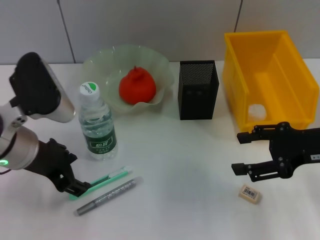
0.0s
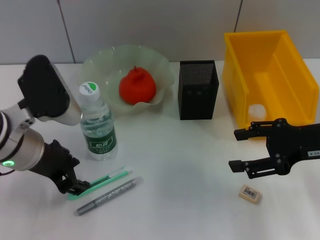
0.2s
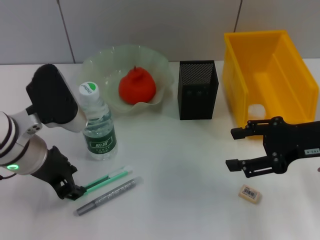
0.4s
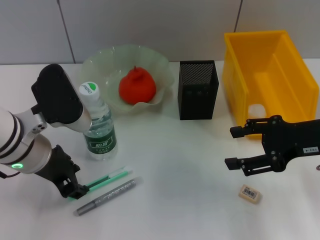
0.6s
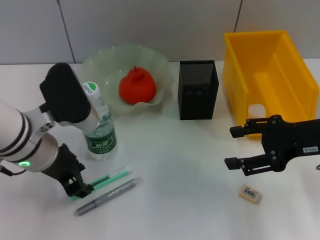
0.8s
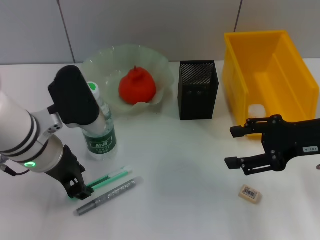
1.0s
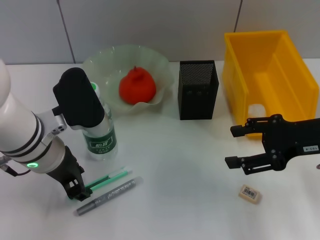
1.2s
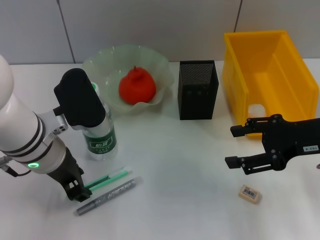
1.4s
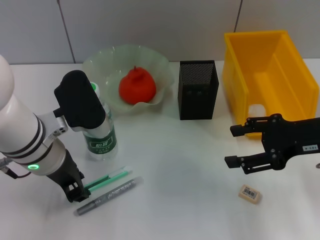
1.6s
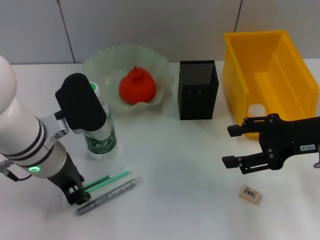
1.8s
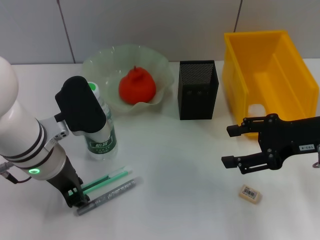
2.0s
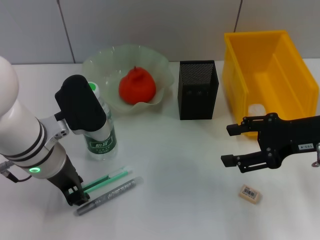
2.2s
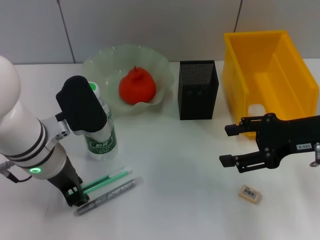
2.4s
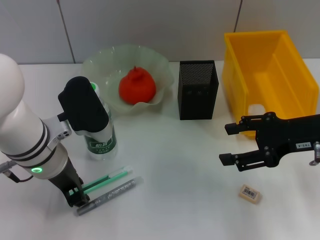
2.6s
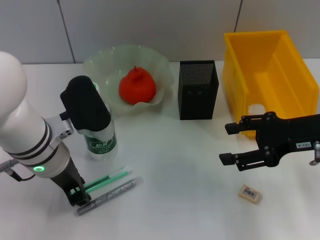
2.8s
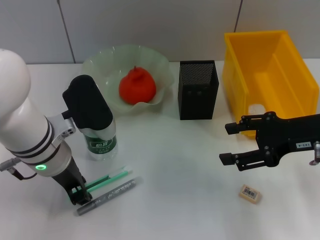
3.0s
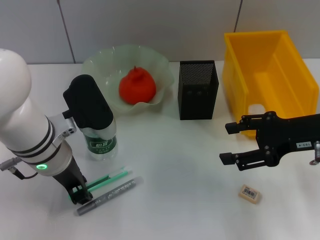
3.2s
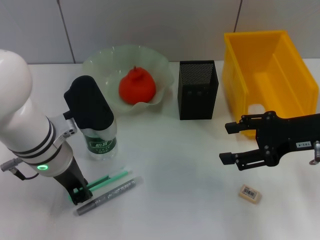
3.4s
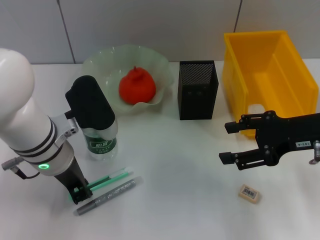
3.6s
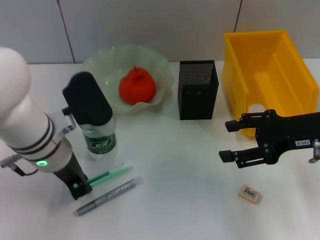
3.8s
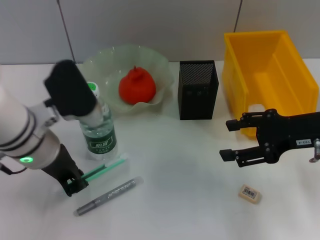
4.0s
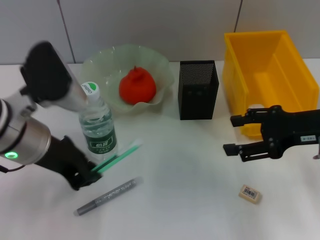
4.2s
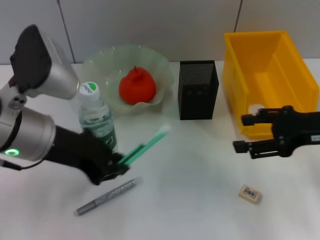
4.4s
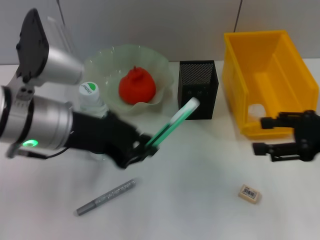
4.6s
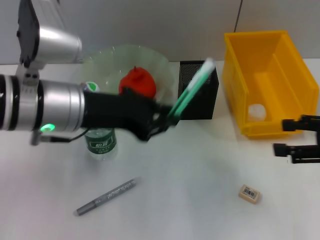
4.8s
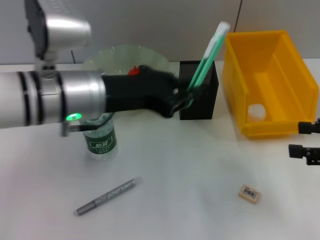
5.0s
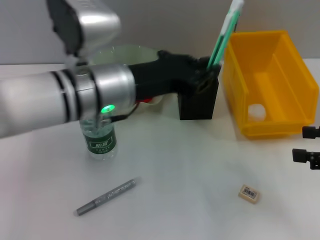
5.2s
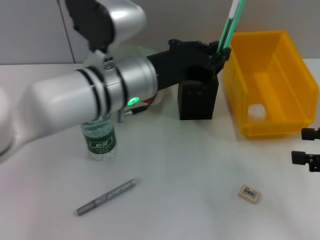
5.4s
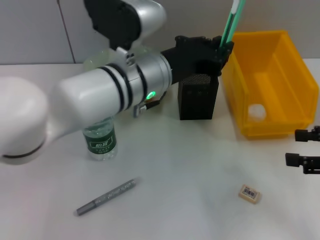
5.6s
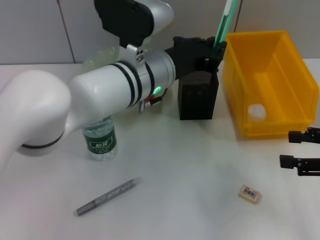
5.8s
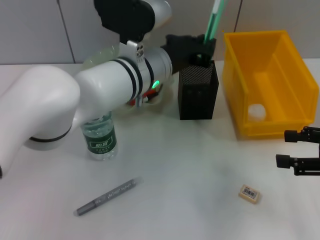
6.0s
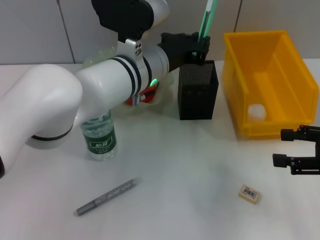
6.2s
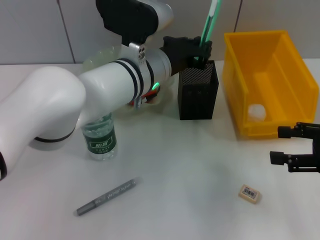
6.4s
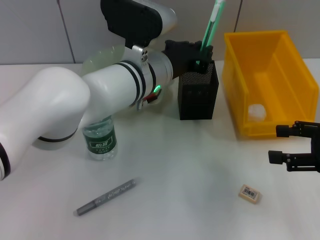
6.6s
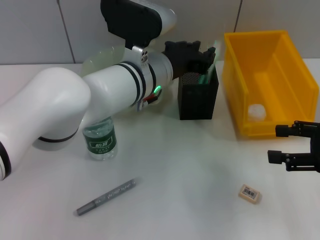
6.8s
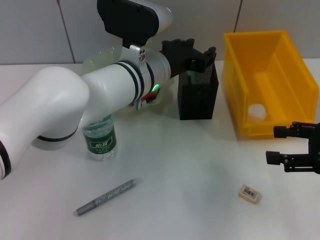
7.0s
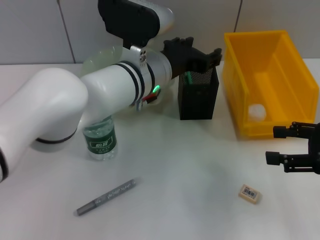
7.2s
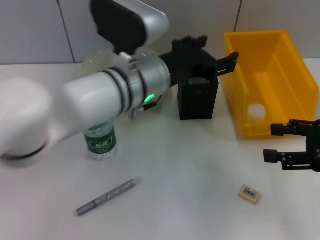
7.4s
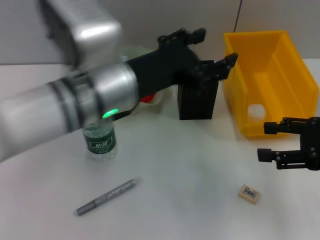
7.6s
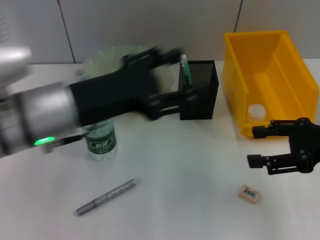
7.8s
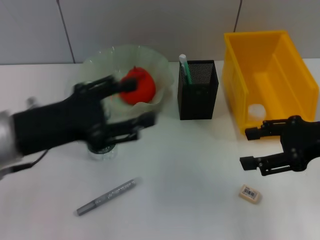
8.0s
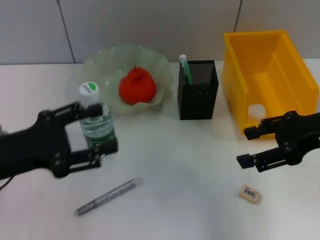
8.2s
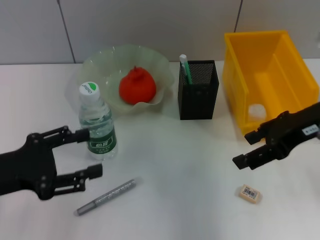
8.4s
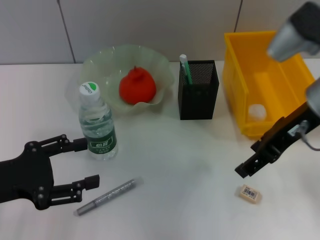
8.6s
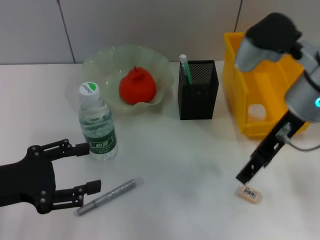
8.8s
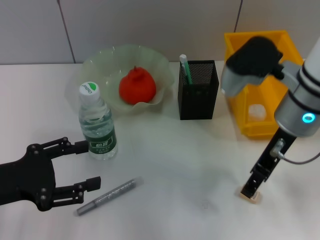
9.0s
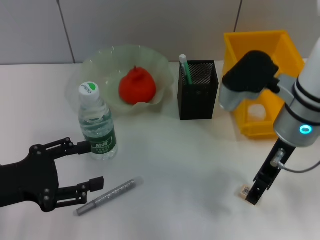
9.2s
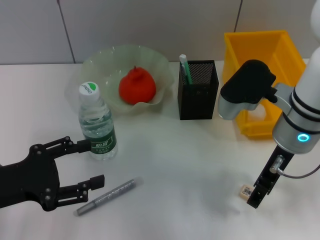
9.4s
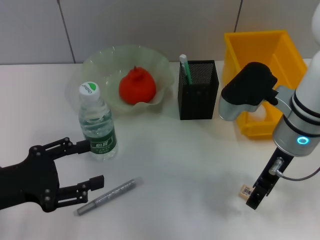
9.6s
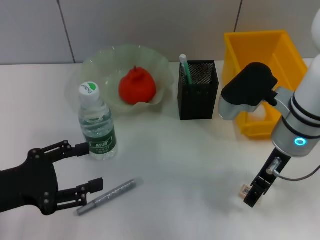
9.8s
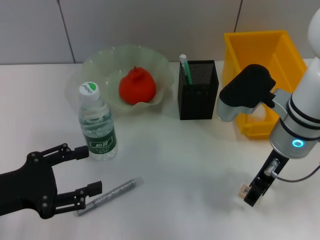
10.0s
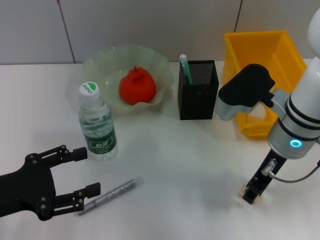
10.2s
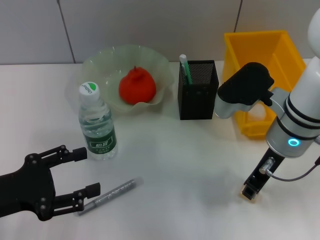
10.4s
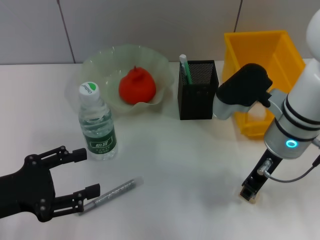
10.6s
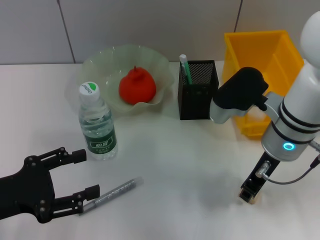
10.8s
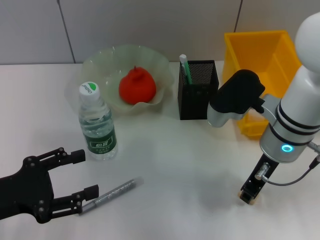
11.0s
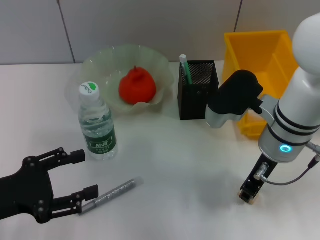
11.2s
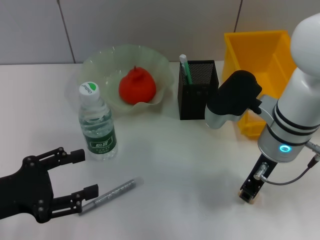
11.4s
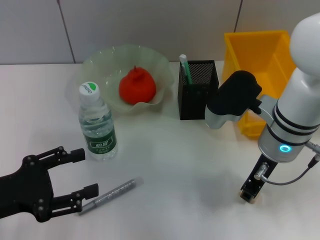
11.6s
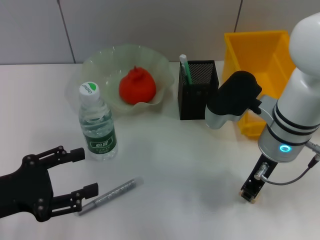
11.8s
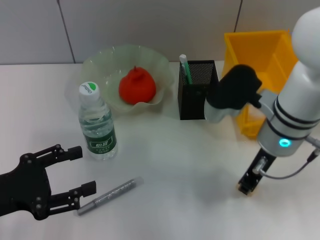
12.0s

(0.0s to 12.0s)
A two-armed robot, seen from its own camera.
Step, 0.0s - 3.4s: Grab the blue utility knife with the left hand.
Step, 3.8s - 7.0s: Place the blue utility knife into the pen holder with the left hand.
Step, 7.2s - 11.6s: Grab the eraser with the right hand.
0.0s - 1.6s: There are only small adjustments of the grippers.
1.6s - 3.0s: Both grippers stay about where they are.
3.0s - 4.4s: The left gripper goes approximately 5 cm upward.
4.4s - 6.0s: The right gripper is displaced to the right by some 5 cm. Meanwhile the left gripper shifts approximately 15 cm to the right and forward.
6.0s - 7.6s: The left gripper heads backward and to the left, covering approximately 10 cm, and opens its fingers.
7.6s - 9.0s: The left gripper moves to the left and backward, about 20 cm. Meanwhile the right gripper shifts about 15 cm to the left and forward.
9.0s - 10.4s: The right gripper closes.
10.4s - 12.0s: Neither gripper changes place.

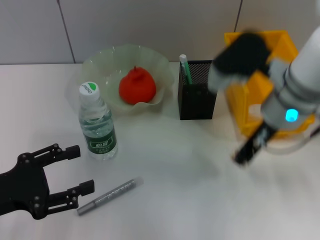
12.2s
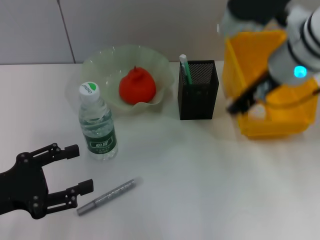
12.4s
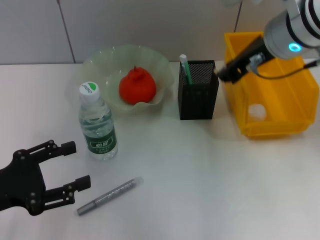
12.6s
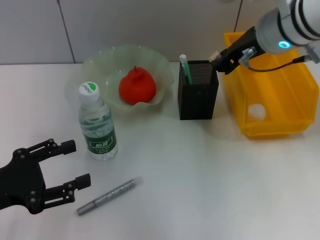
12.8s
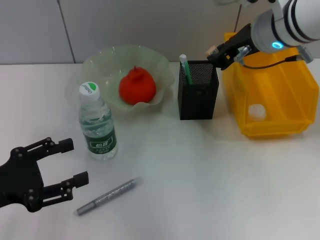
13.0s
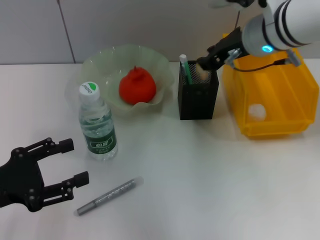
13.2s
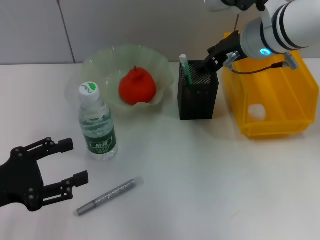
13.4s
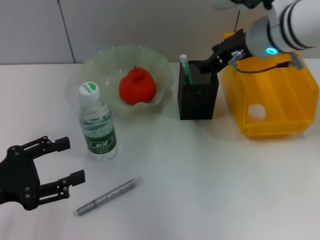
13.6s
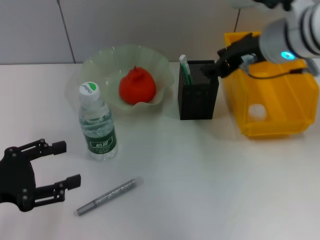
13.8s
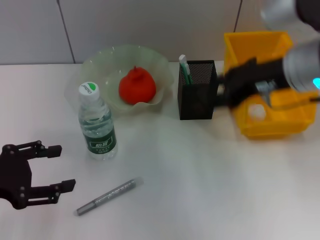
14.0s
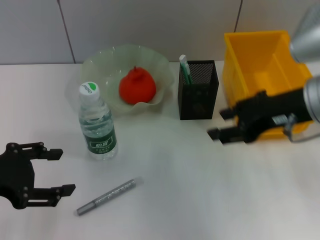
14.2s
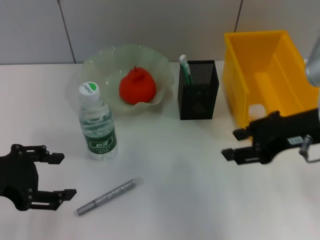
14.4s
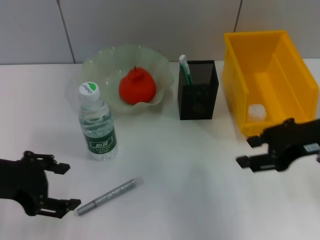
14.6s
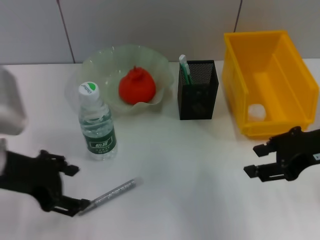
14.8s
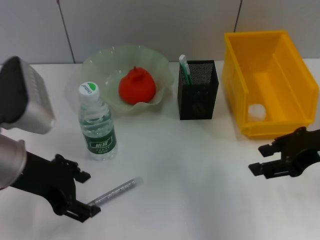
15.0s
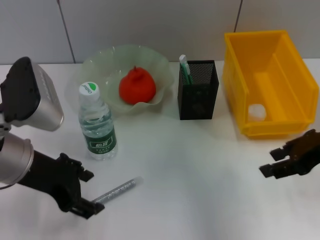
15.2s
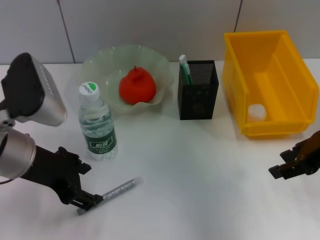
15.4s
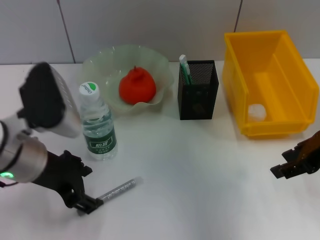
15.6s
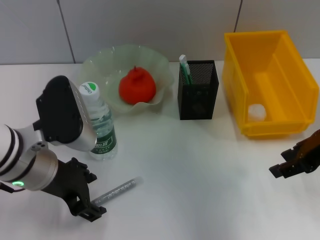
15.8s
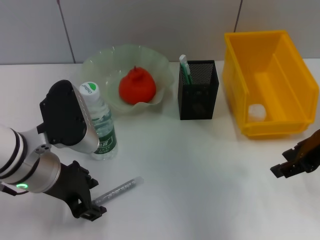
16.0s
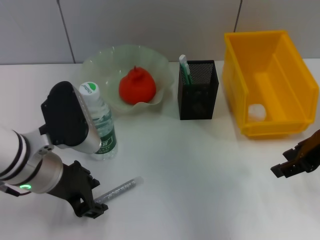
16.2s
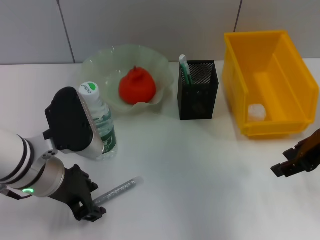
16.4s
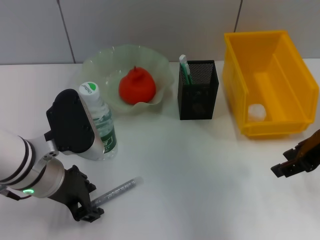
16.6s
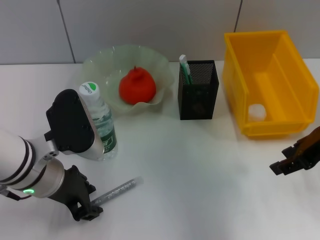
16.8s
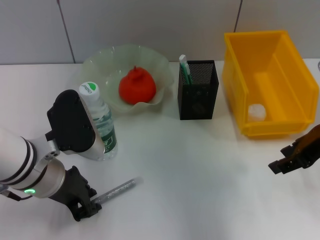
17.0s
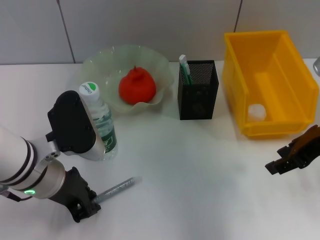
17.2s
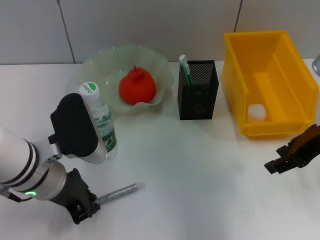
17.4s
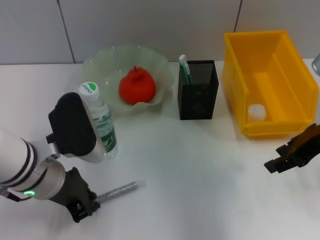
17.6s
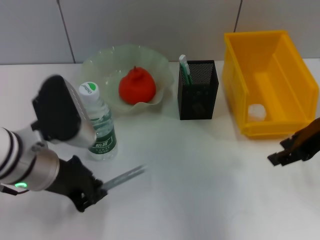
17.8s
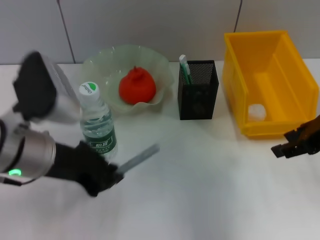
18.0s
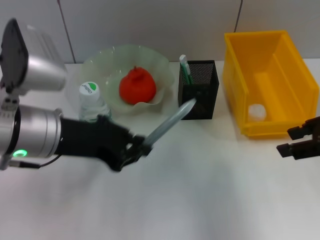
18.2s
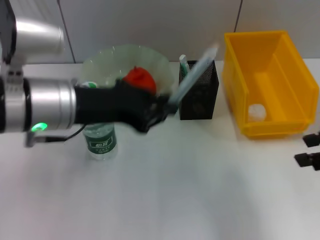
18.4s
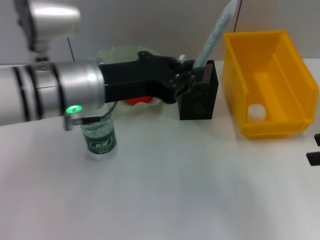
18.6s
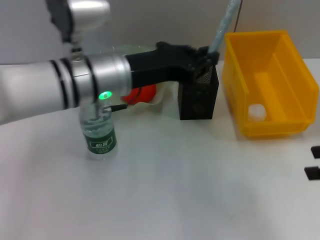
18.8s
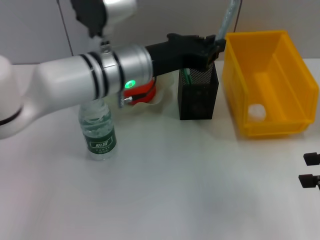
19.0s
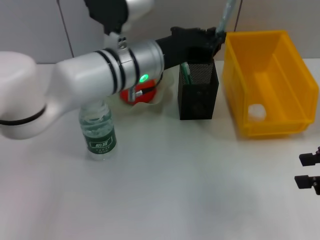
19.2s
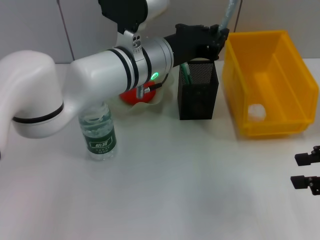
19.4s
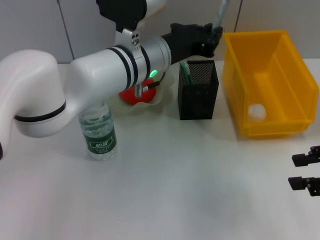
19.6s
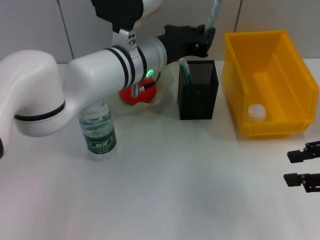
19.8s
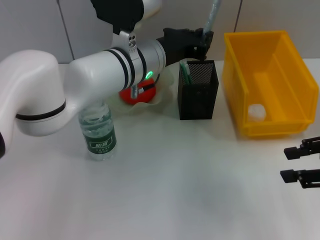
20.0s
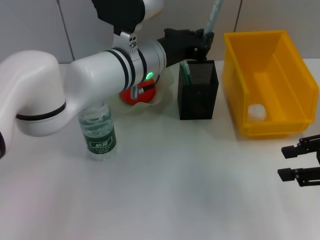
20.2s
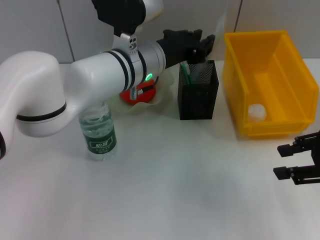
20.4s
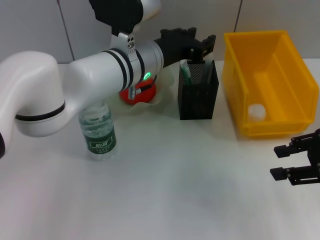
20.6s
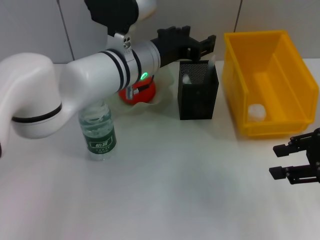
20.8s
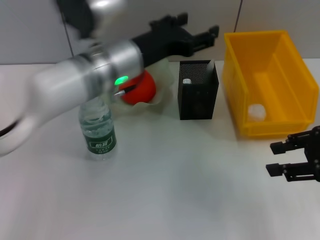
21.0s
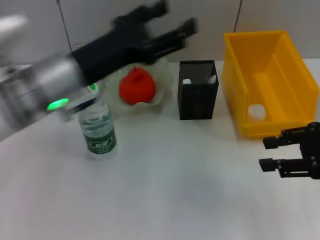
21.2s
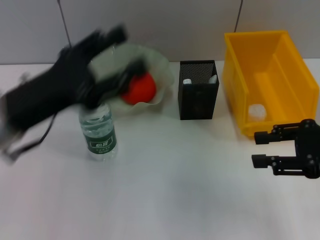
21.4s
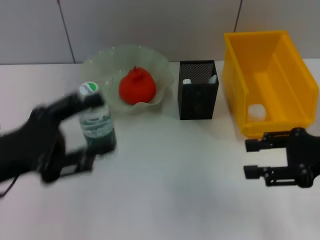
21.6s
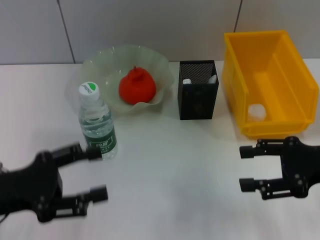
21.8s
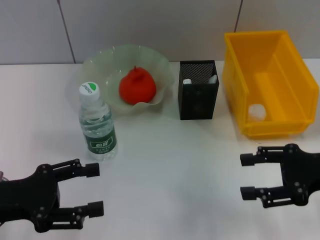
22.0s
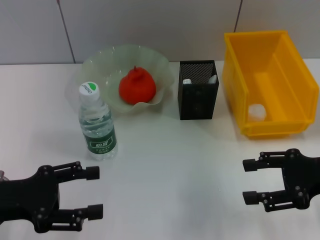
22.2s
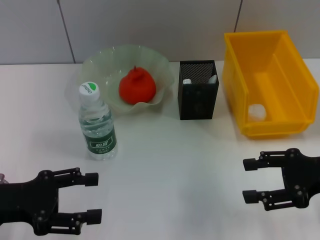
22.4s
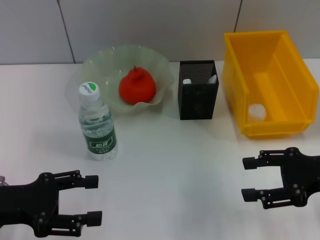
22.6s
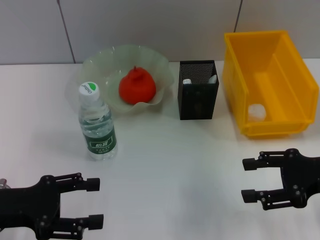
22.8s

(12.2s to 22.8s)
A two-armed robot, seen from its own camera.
Step, 12.2s - 13.2s: Put the eraser into the pen holder with the right hand.
Step, 13.4s - 17.4s: Grab the gray glue with the left hand.
Step, 17.6s - 20.8s: Place the gray glue into the pen holder with the left hand.
12.2s - 13.8s: The right gripper changes place by approximately 5 cm, and opens.
13.8s - 15.2s: The right gripper travels to the right and backward by some 15 cm; the left gripper moves to the right, forward and upward, approximately 15 cm.
15.2s - 16.8s: The left gripper shifts by some 5 cm.
16.8s - 18.2s: The left gripper shifts approximately 5 cm upward, and closes up.
18.2s - 19.8s: The right gripper moves approximately 5 cm. Meanwhile the left gripper travels to the right and forward by roughly 15 cm.
19.8s - 21.2s: The left gripper heads to the left and backward, covering about 10 cm, and opens up.
21.2s - 22.8s: The left gripper goes some 20 cm to the left, backward and downward; the right gripper changes place by some 5 cm, and opens.
